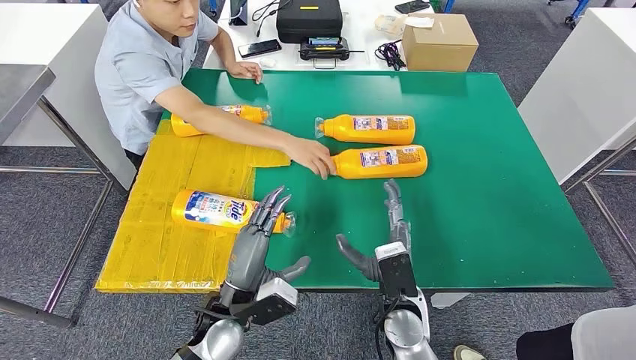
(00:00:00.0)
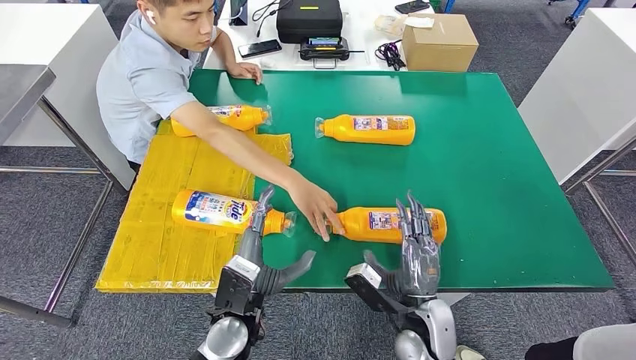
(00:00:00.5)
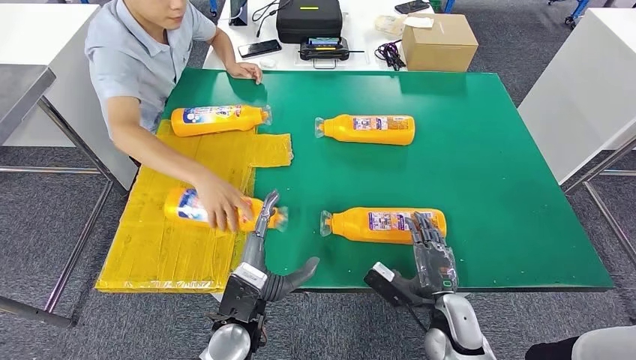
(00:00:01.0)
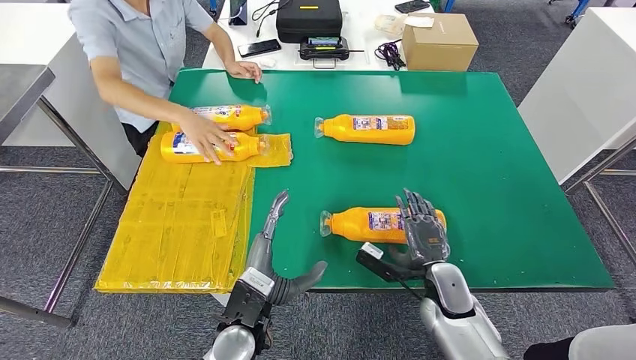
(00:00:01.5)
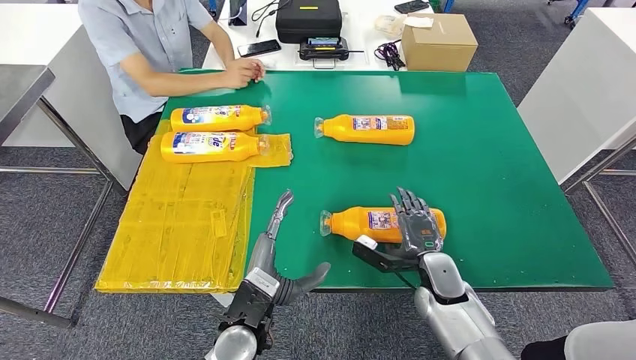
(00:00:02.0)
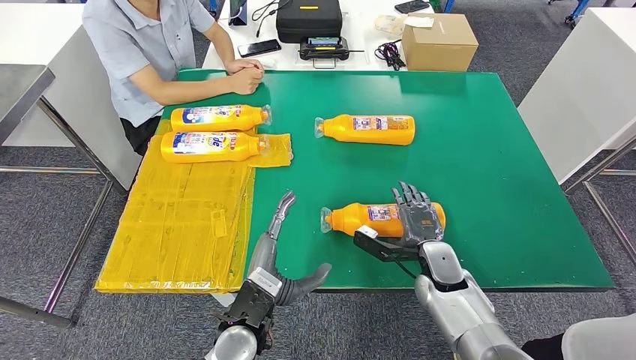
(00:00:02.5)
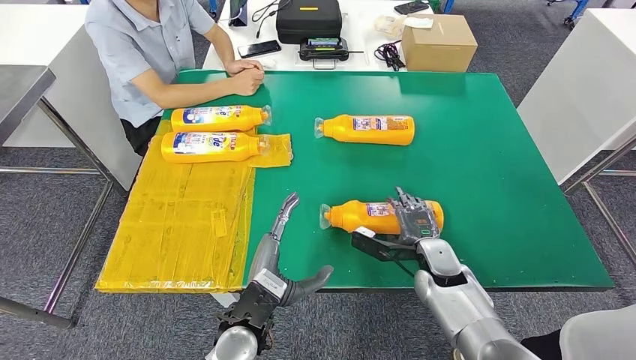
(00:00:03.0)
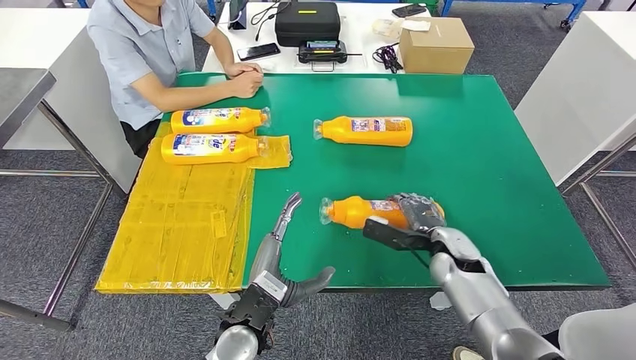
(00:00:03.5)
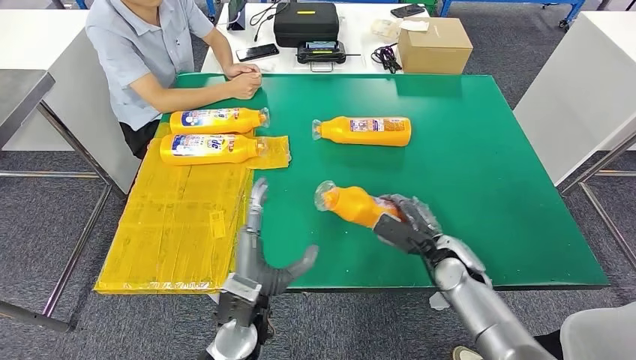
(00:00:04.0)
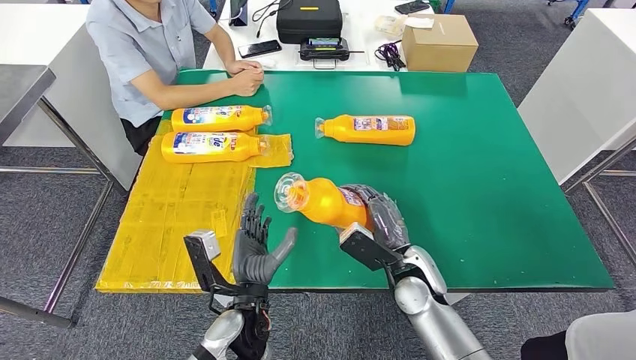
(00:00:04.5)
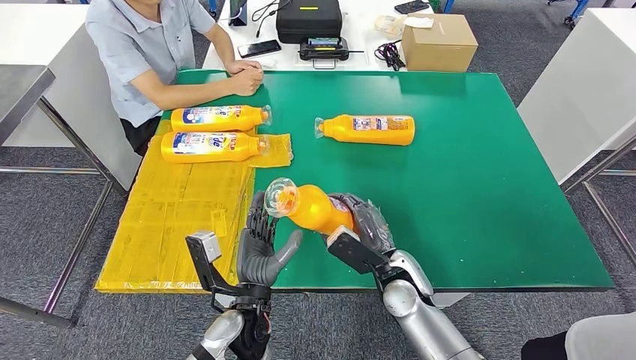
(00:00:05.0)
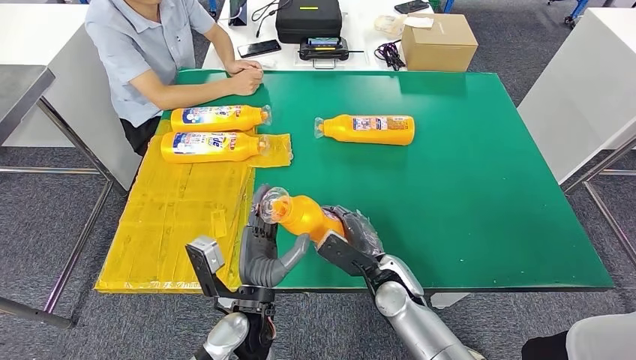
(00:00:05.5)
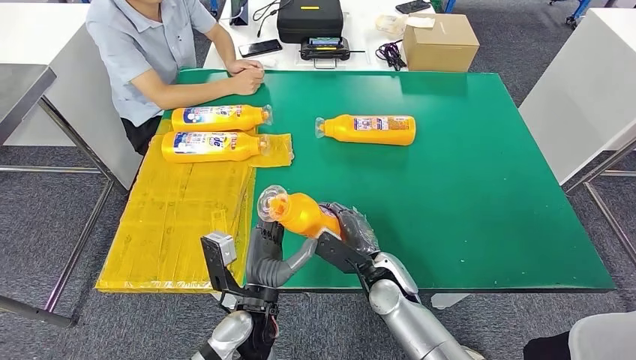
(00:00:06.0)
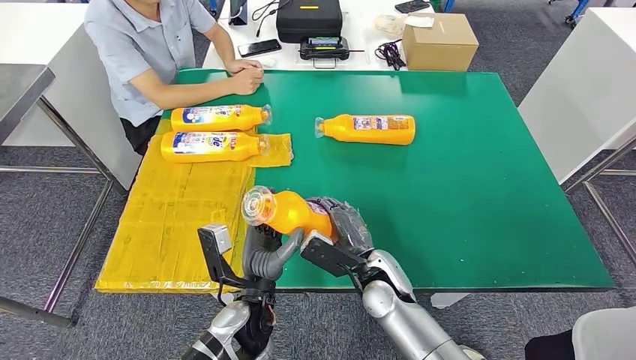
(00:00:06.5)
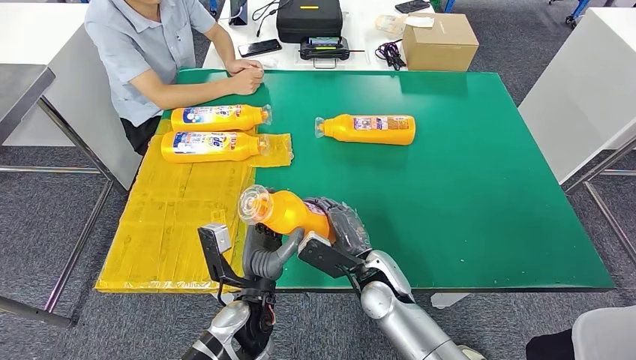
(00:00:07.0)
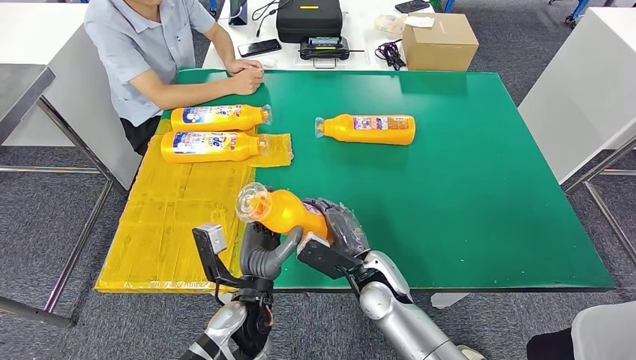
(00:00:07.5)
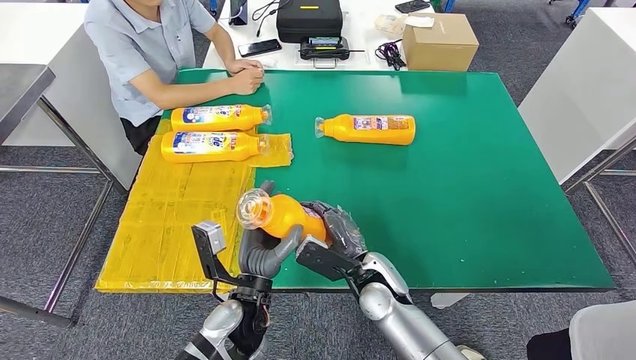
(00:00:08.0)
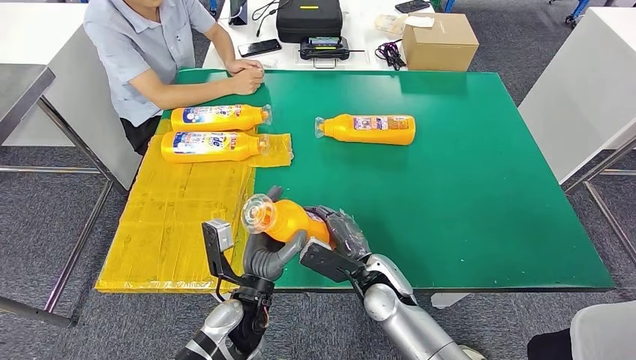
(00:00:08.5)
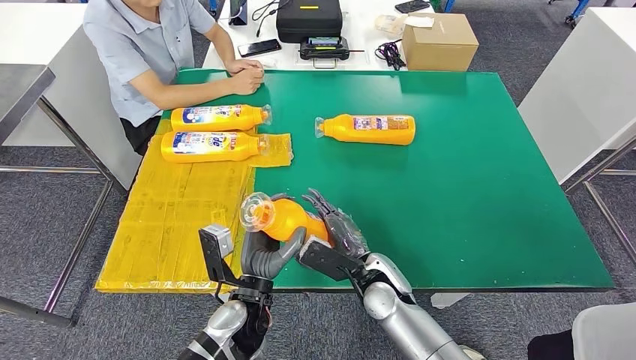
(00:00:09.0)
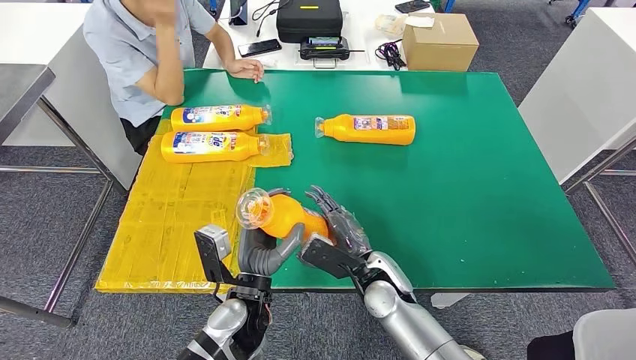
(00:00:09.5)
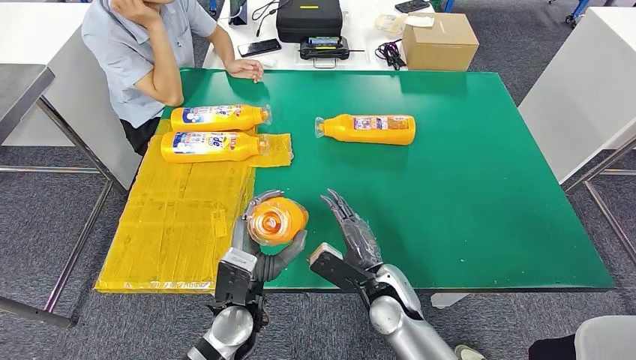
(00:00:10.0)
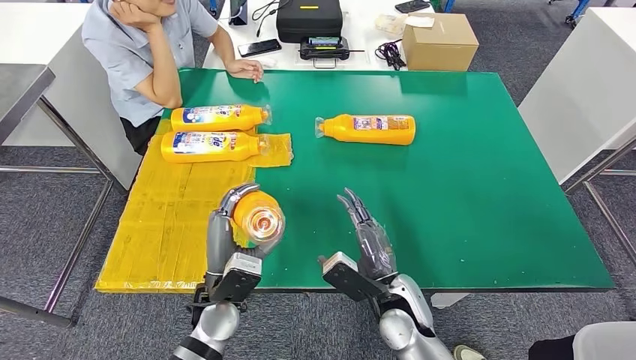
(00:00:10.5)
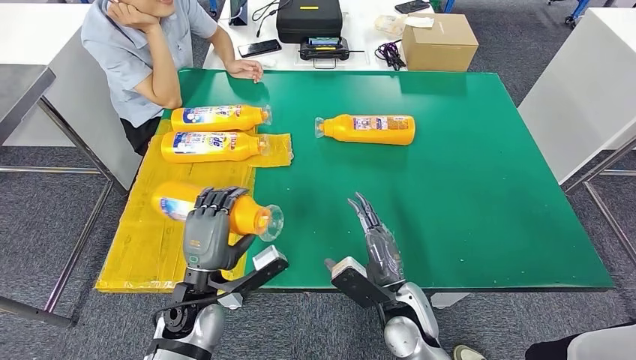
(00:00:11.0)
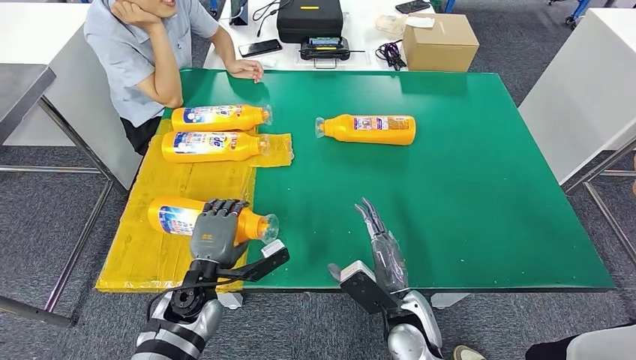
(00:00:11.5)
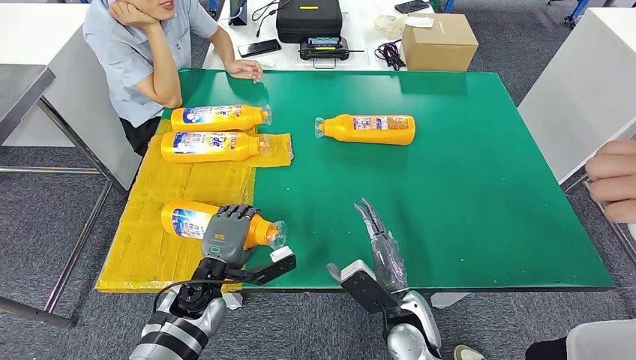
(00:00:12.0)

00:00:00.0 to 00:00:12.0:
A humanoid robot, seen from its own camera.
Step, 00:00:00.0 to 00:00:06.0: Pick up the bottle from the table.
Step, 00:00:06.5 to 00:00:11.5: Flip the bottle to face forward.
00:00:06.0 to 00:00:08.0: The hands make only small movements.
00:00:10.0 to 00:00:12.0: The left hand goes approximately 10 cm to the left. The right hand changes place by some 5 cm.

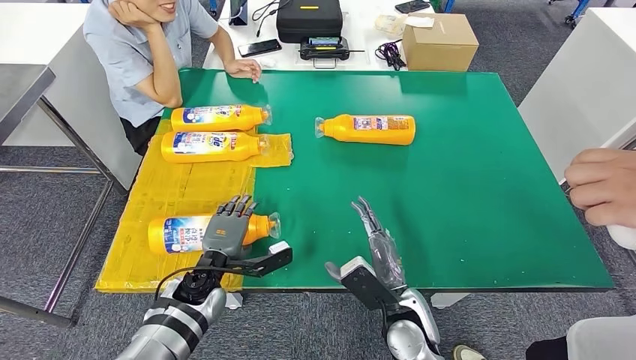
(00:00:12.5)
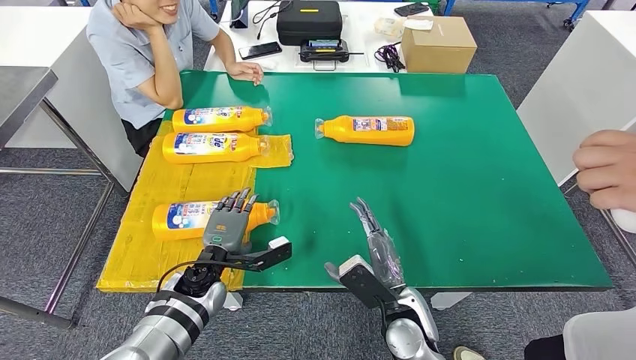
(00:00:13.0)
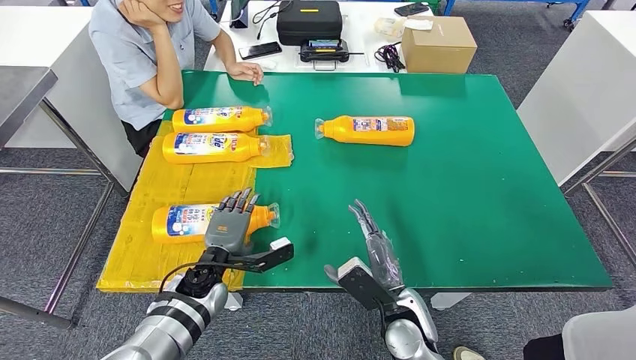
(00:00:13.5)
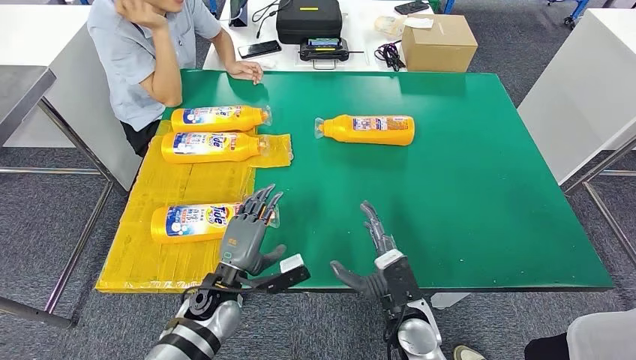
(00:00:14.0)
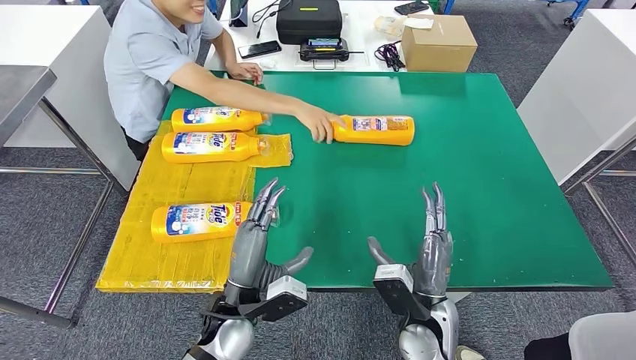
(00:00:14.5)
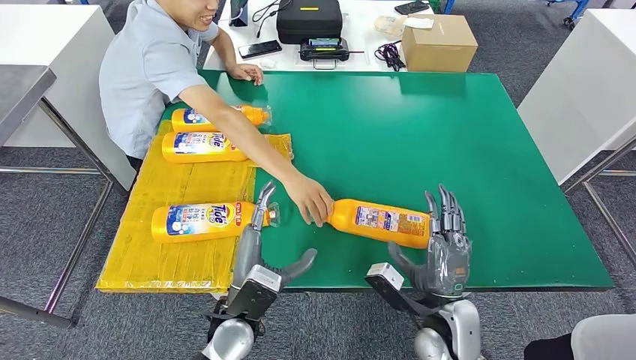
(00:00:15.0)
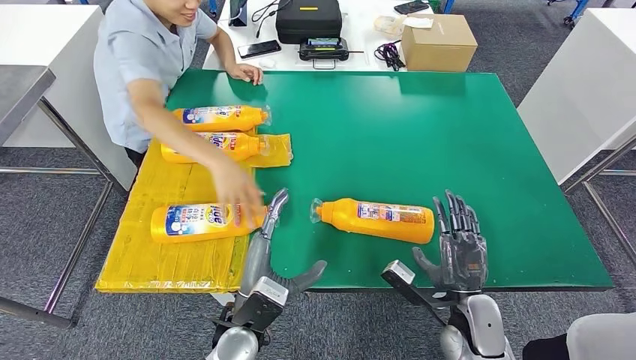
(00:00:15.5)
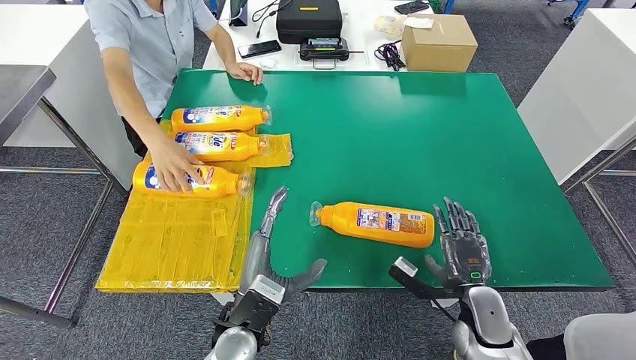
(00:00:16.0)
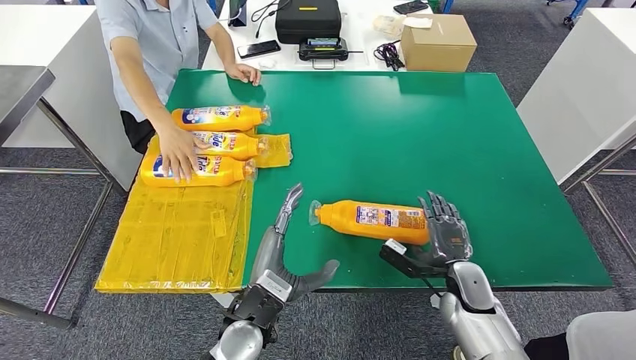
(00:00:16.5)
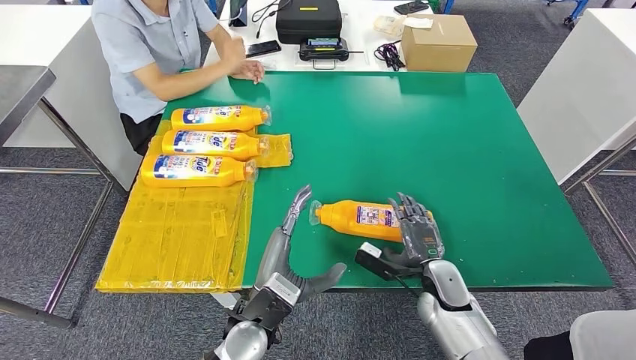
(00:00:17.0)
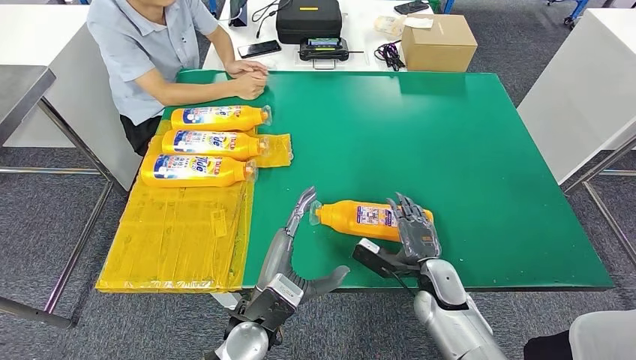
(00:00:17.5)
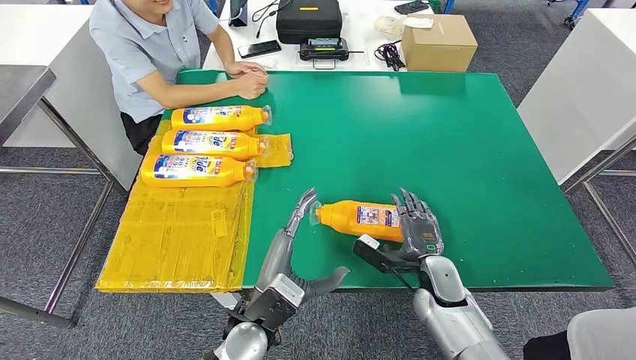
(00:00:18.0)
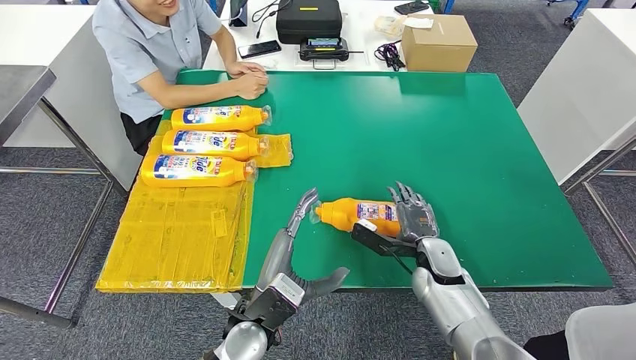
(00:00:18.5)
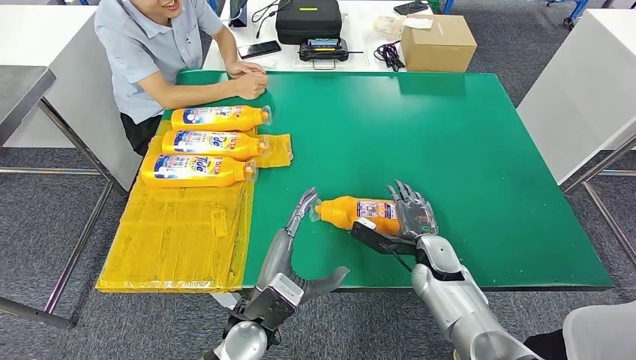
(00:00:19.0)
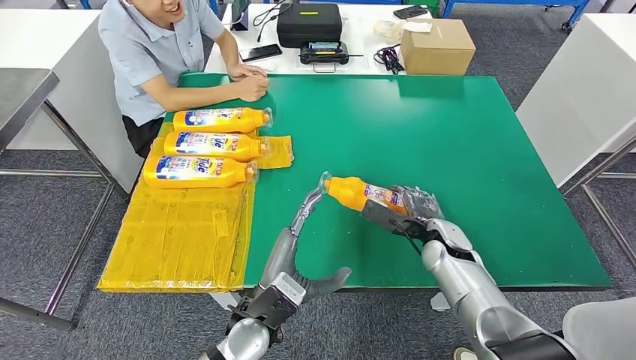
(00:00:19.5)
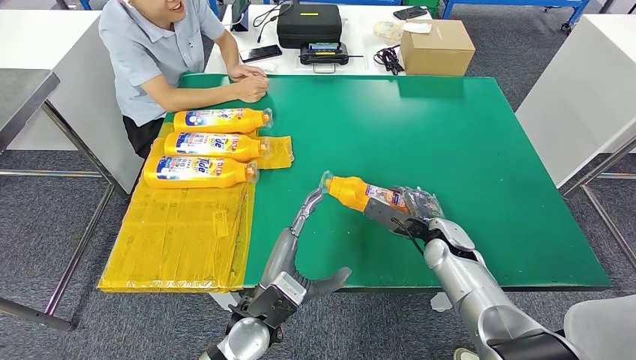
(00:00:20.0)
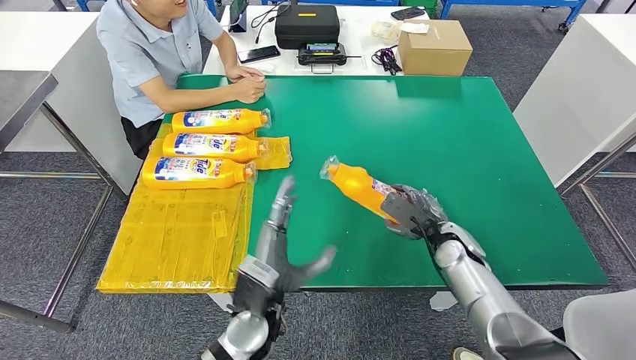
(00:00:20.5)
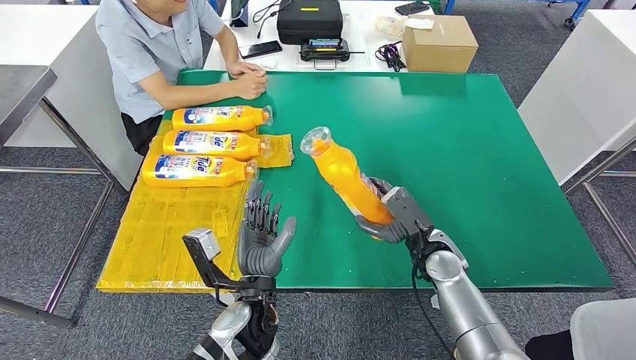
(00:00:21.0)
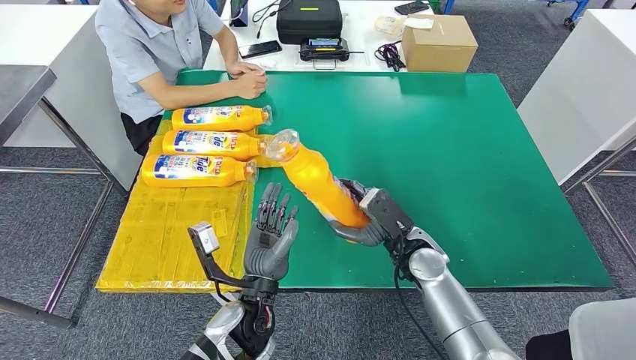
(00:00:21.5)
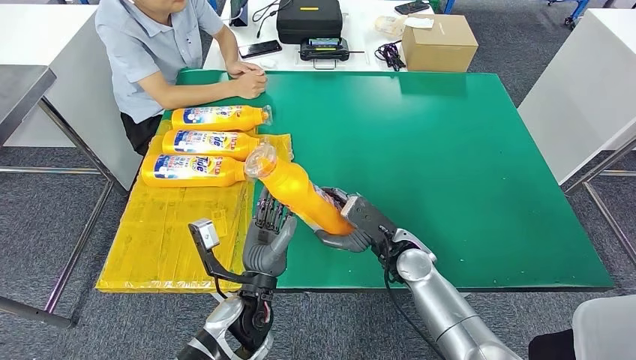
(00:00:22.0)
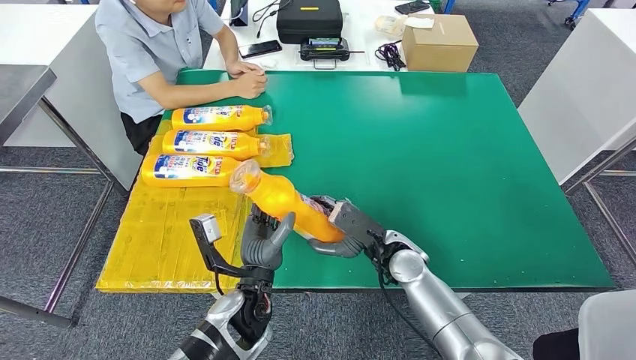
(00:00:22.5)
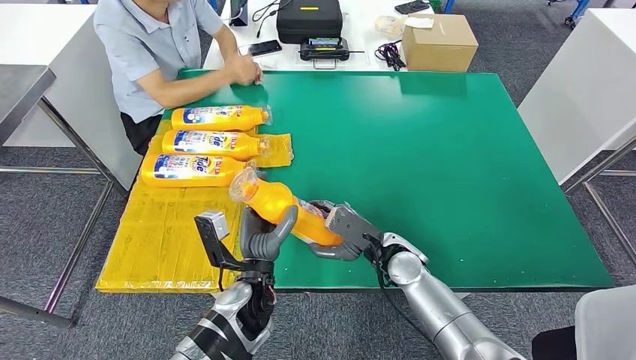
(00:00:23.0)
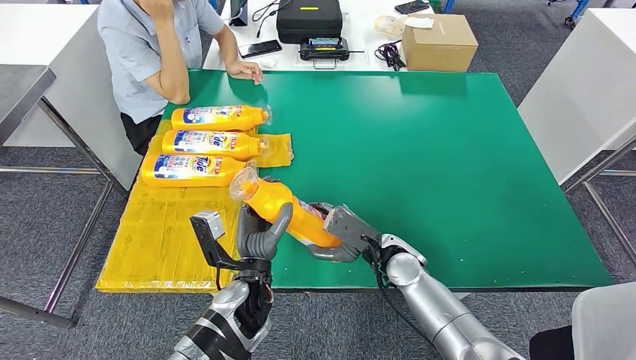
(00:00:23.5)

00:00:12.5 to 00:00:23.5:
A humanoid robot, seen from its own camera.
Step, 00:00:13.0 to 00:00:22.5: Pick up the bottle from the table.
00:00:16.0 to 00:00:18.0: The right hand travels forward and to the left by some 10 cm.
00:00:21.5 to 00:00:23.5: The hands make only small movements.
